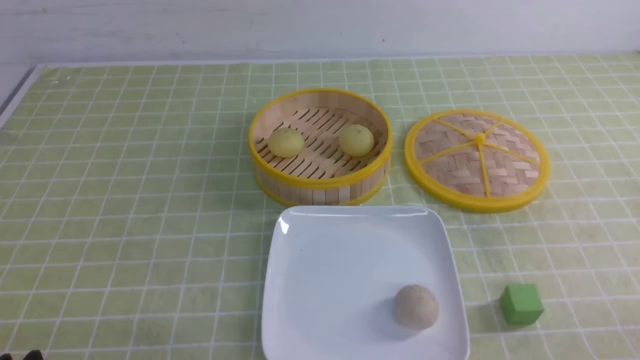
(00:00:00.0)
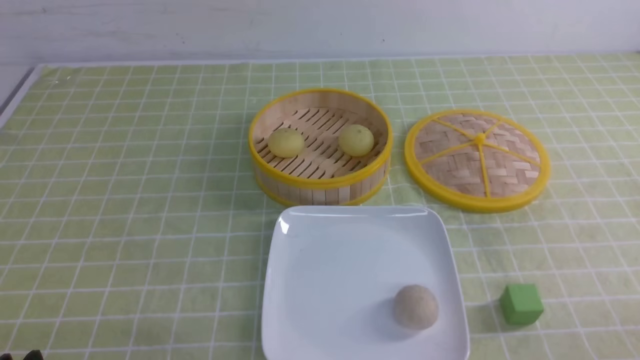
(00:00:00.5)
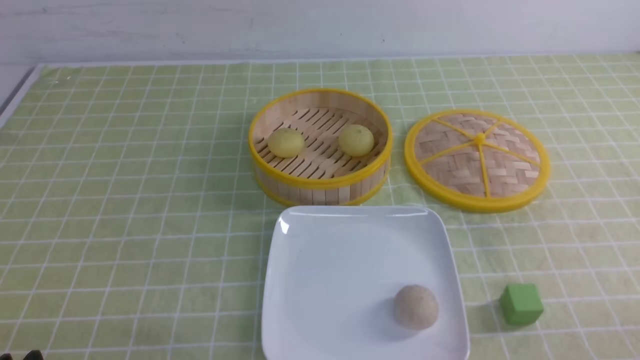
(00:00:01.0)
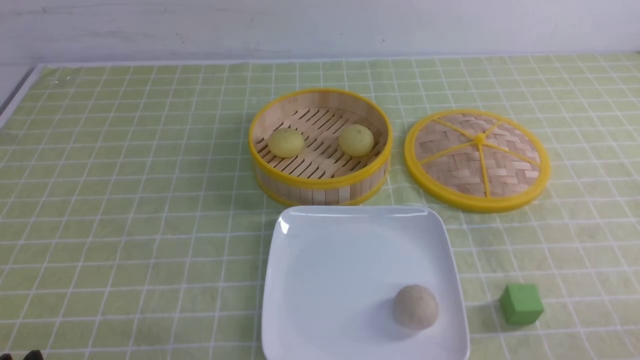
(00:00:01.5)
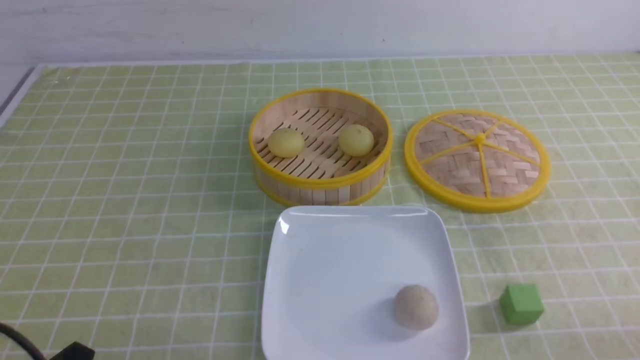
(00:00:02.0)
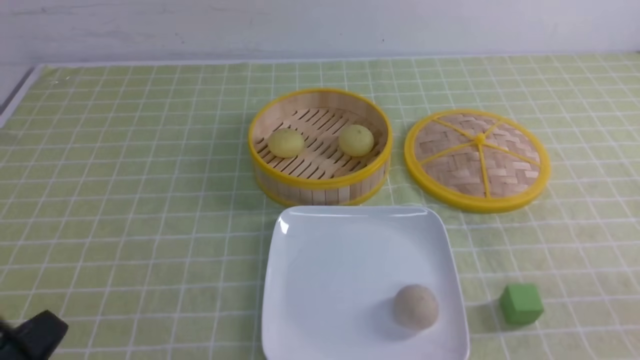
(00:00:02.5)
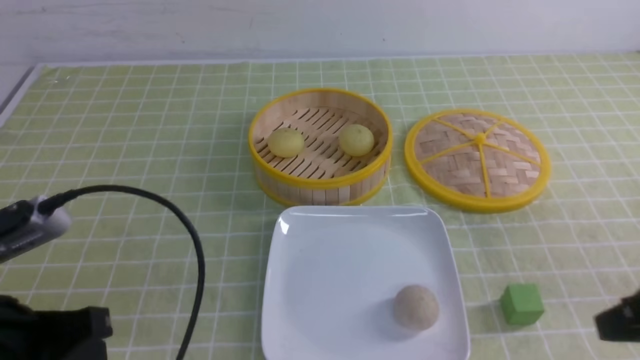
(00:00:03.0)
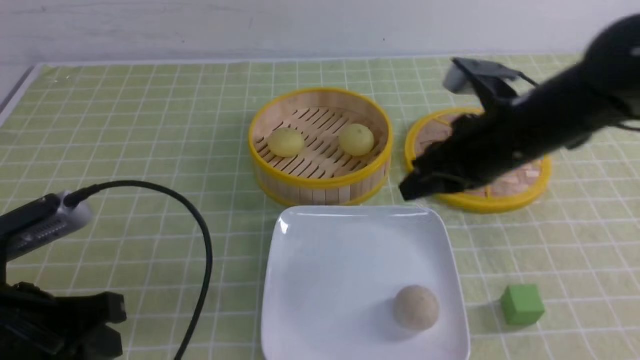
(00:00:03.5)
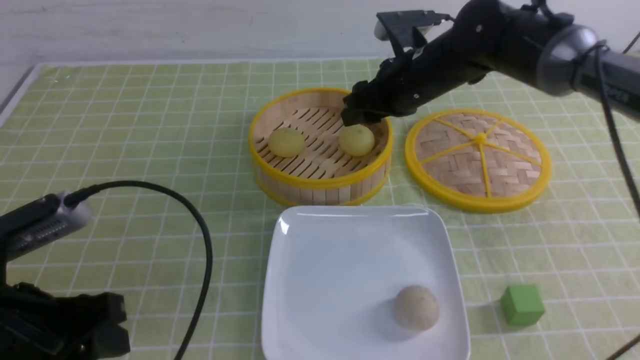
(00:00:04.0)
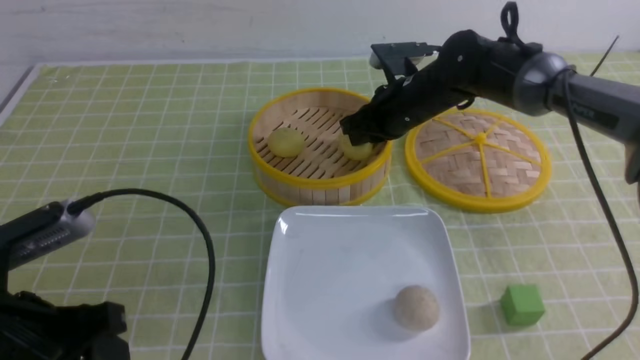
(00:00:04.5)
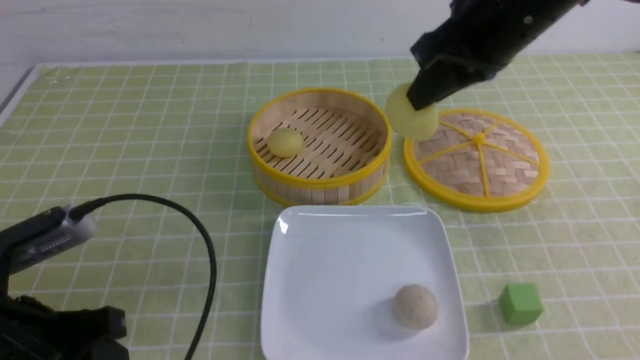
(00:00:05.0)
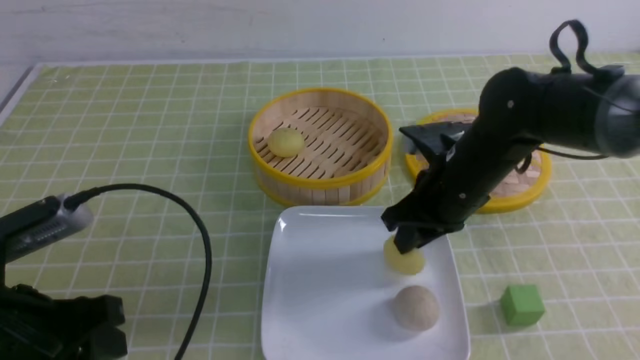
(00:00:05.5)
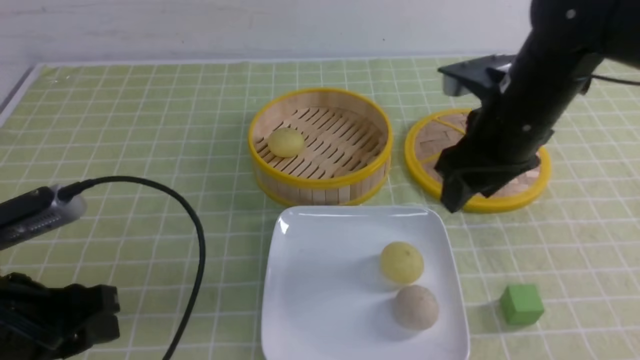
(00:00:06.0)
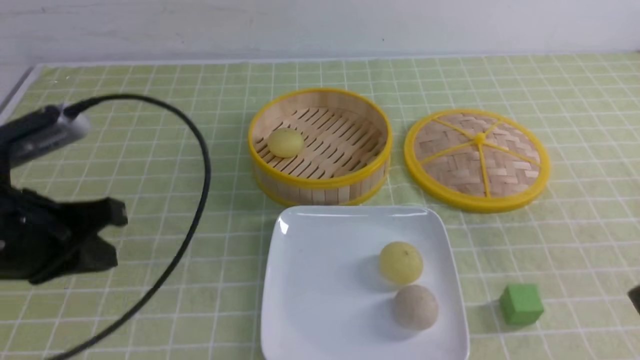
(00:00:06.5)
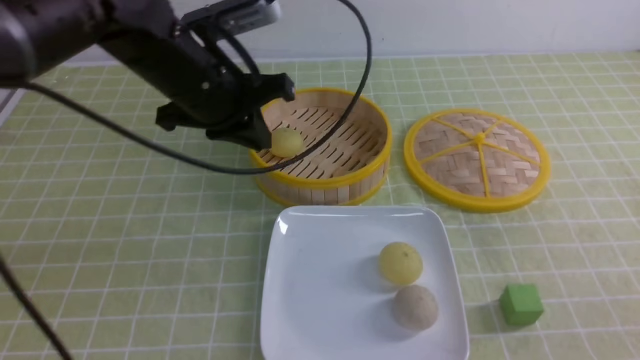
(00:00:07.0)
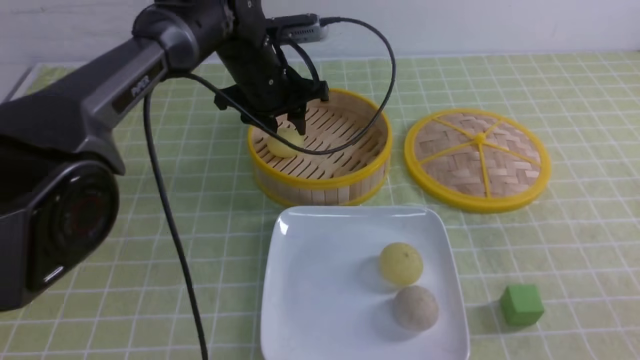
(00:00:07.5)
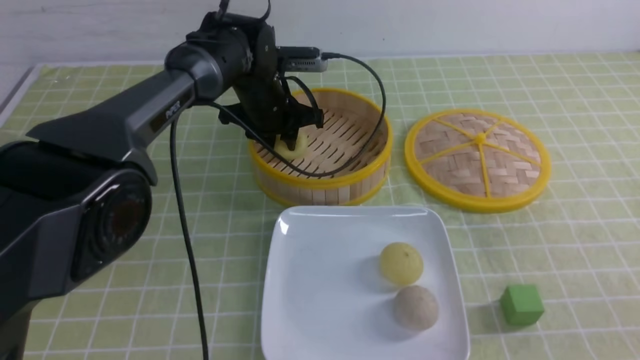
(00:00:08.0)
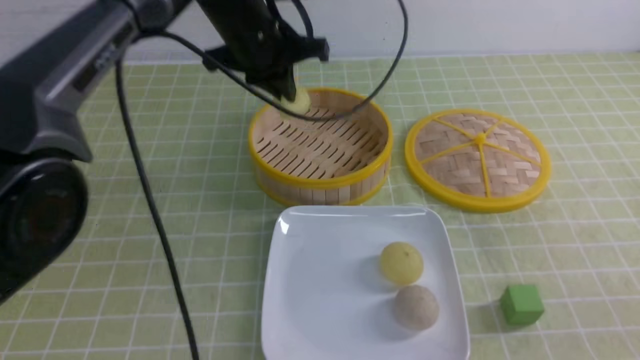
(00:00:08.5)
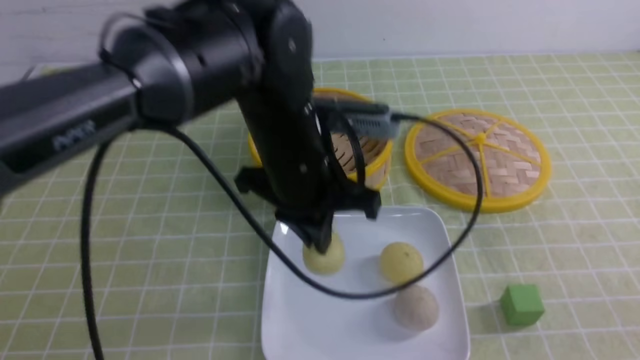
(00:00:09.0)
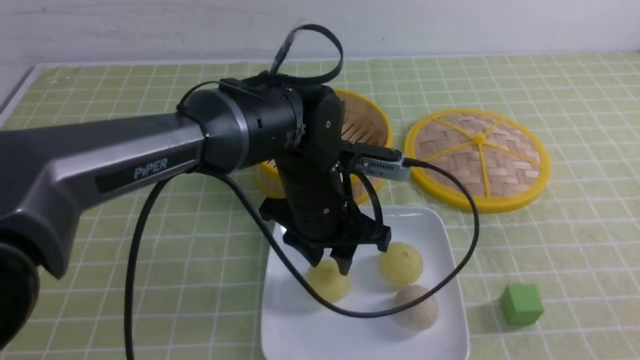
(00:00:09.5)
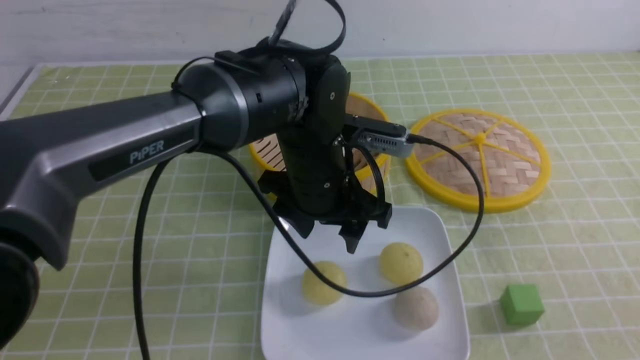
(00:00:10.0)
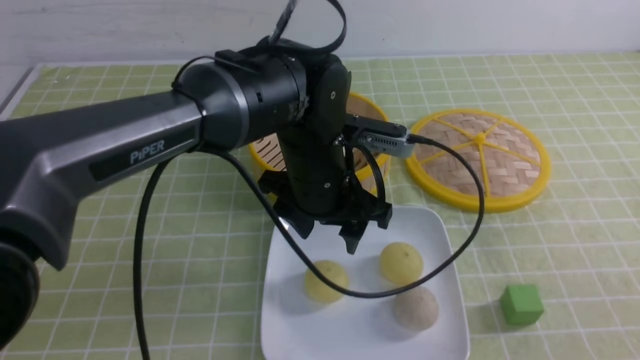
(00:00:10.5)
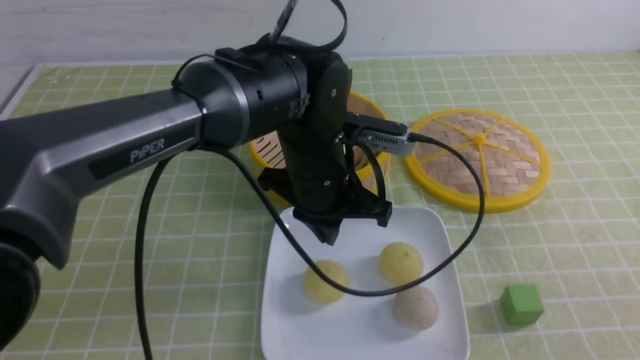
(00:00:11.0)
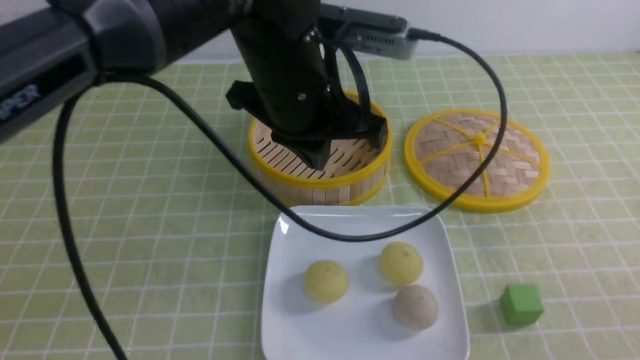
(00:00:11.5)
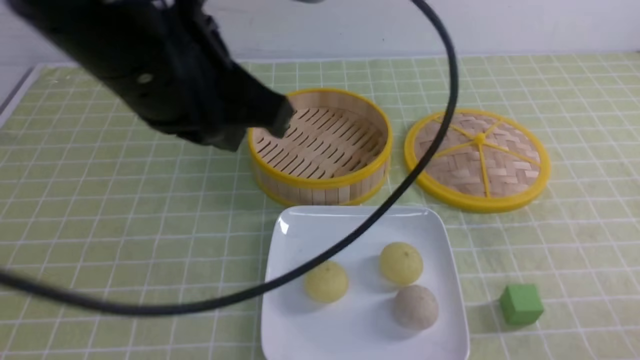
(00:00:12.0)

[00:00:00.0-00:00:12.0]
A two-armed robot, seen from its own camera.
Step, 00:00:00.0 to 00:00:04.0: use the right arm to grab the steamed stuffed bun that is closest to it.
Step, 00:00:04.5 to 00:00:05.5: use the right arm to put the steamed stuffed bun into the plate.
Step, 00:00:06.0 to 00:00:08.0: use the left arm to grab the steamed stuffed bun that is closest to it.
Step, 00:00:08.5 to 00:00:09.0: use the left arm to put the steamed stuffed bun into the plate.
00:00:02.0 to 00:00:04.0: The left gripper is displaced forward and upward by some 10 cm, and closes, then opens again; the right gripper heads forward and to the left, covering about 50 cm, and closes, then reopens.
00:00:04.0 to 00:00:06.0: The right gripper goes roughly 15 cm backward and to the right, and closes, then reopens.
00:00:06.0 to 00:00:08.0: The left gripper shifts about 35 cm forward and to the right. Meanwhile the right gripper goes approximately 30 cm backward and to the right, and closes.
00:00:08.0 to 00:00:10.0: The left gripper moves backward, about 15 cm, and opens up.
00:00:10.0 to 00:00:12.0: The right gripper is displaced downward by some 10 cm. Meanwhile the left gripper is displaced upward, backward and to the left by approximately 25 cm, and closes its fingers.

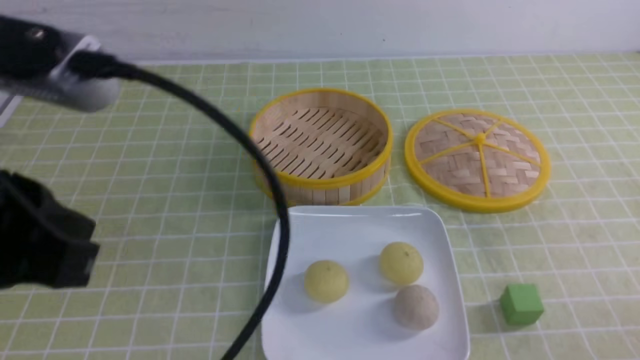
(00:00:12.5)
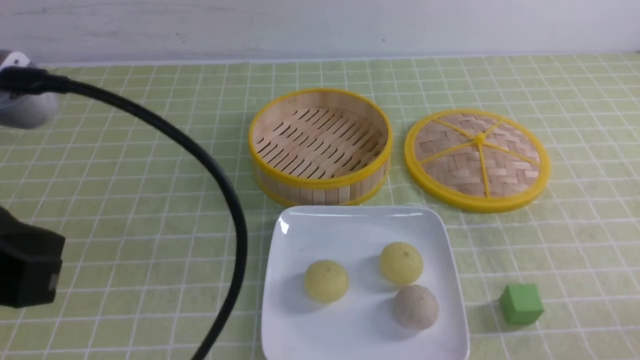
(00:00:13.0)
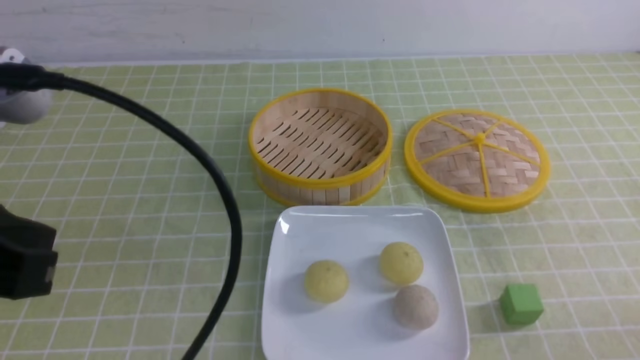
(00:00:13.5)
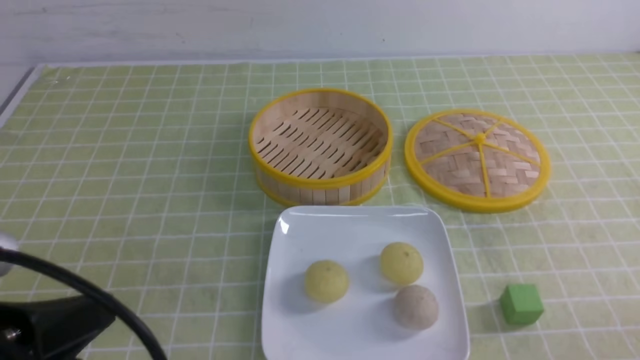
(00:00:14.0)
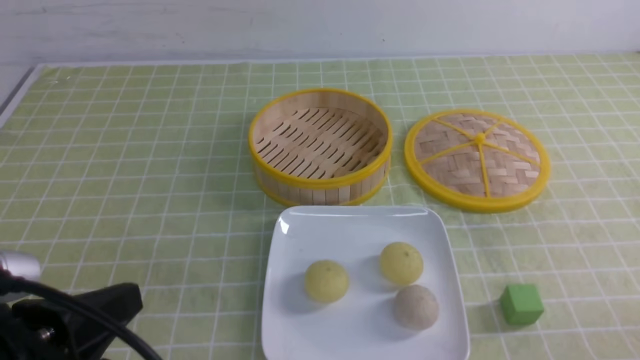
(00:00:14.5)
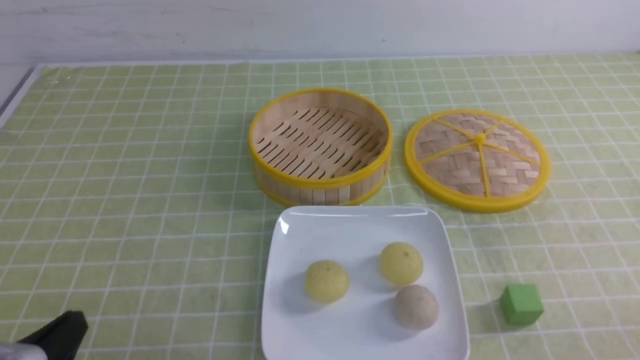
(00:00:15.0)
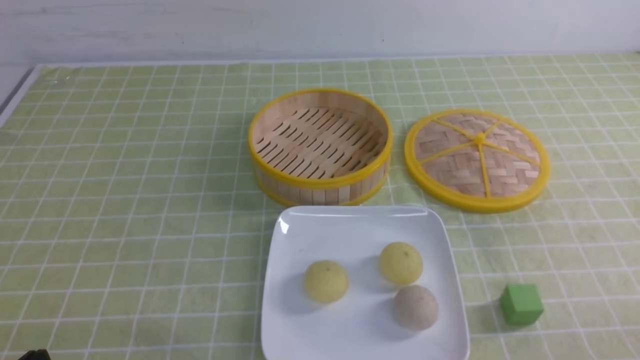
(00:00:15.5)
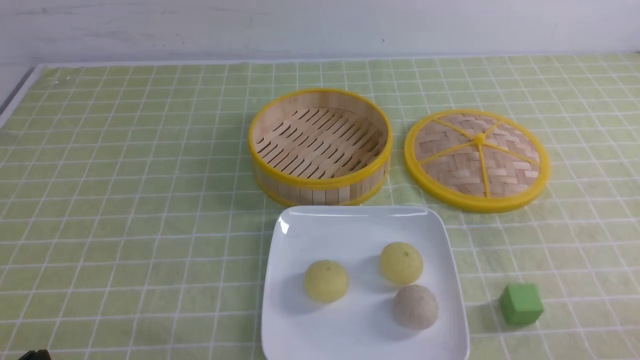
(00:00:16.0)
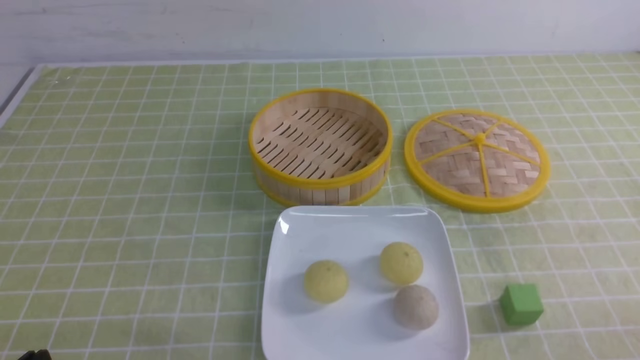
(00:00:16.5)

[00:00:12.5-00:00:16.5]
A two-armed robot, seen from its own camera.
00:00:12.5 to 00:00:14.5: The left gripper travels downward by approximately 15 cm.
00:00:14.5 to 00:00:16.5: The left gripper shifts approximately 10 cm downward.
